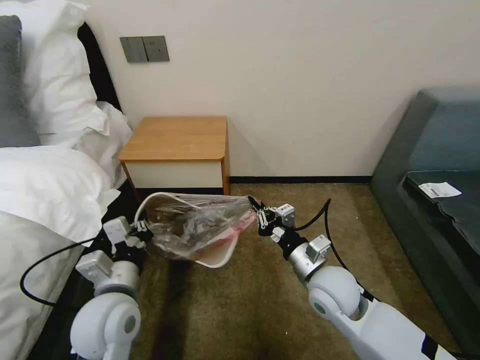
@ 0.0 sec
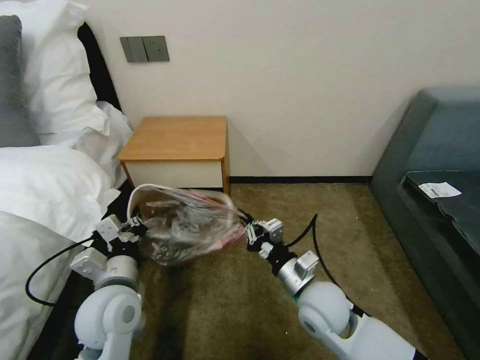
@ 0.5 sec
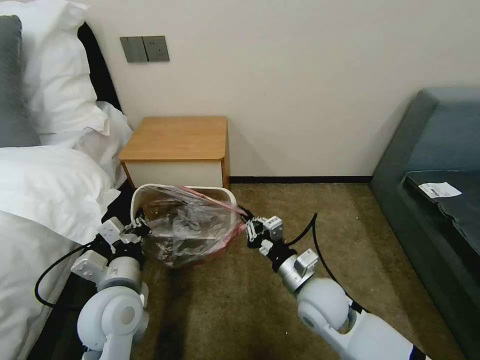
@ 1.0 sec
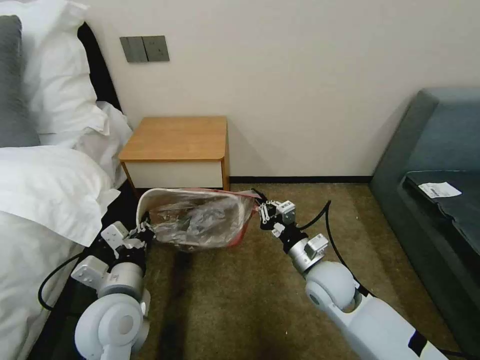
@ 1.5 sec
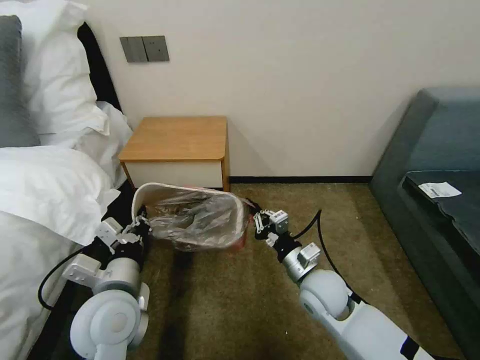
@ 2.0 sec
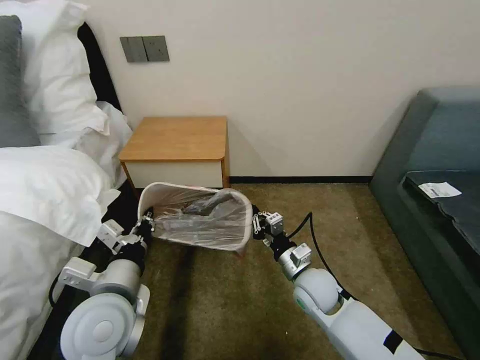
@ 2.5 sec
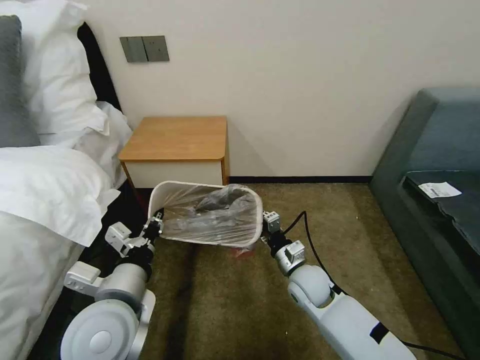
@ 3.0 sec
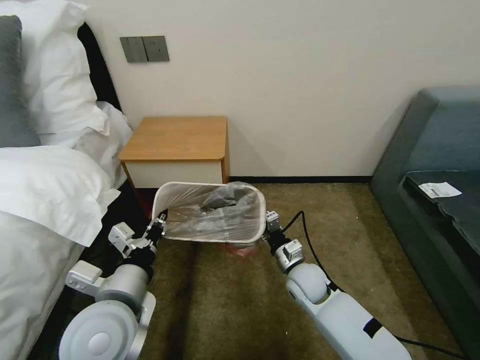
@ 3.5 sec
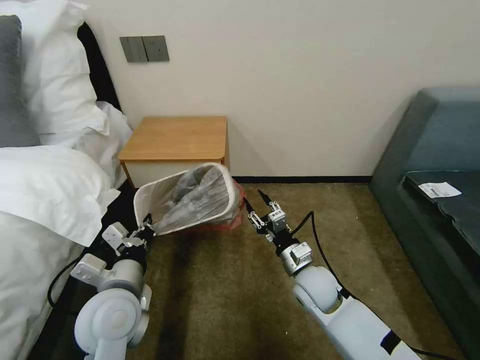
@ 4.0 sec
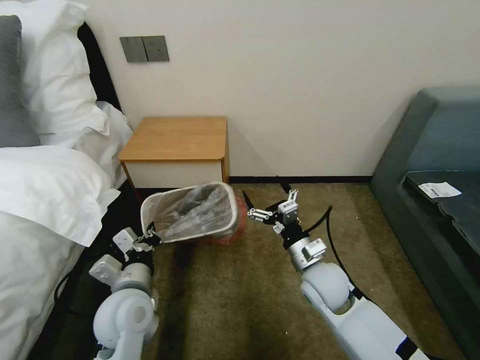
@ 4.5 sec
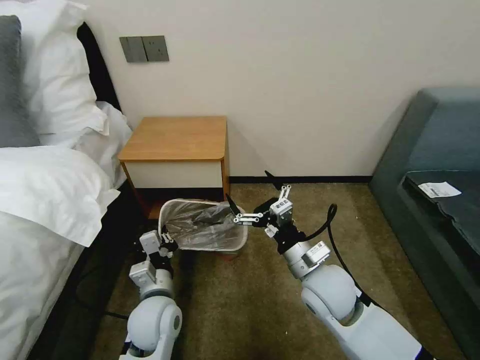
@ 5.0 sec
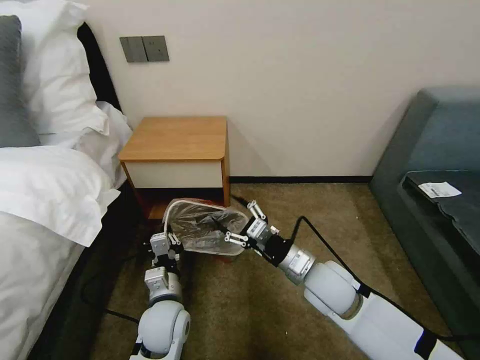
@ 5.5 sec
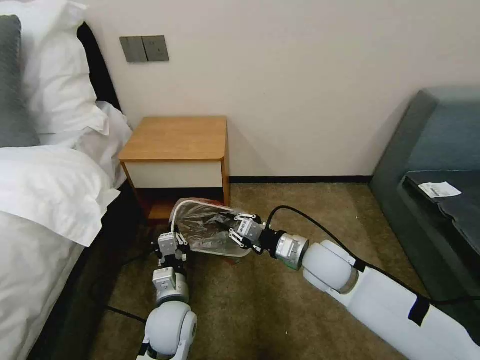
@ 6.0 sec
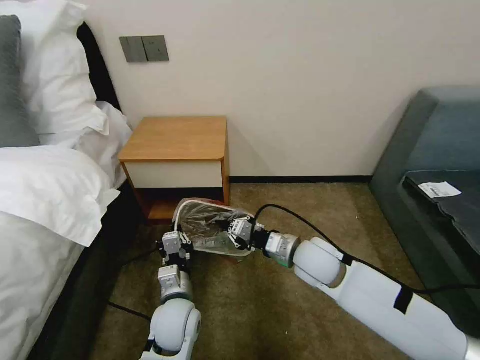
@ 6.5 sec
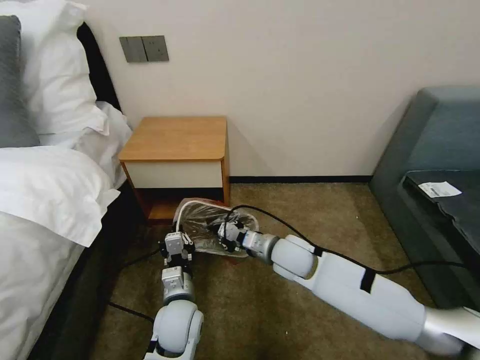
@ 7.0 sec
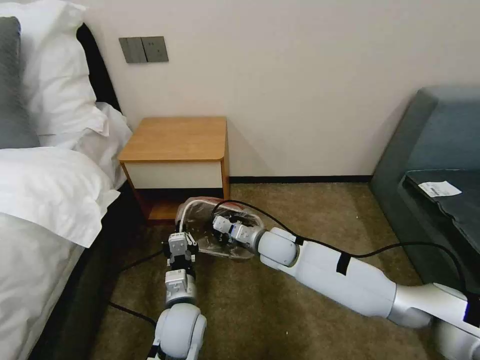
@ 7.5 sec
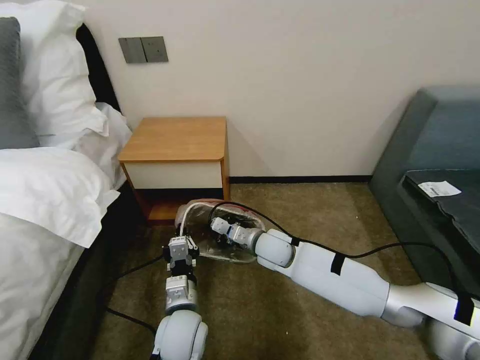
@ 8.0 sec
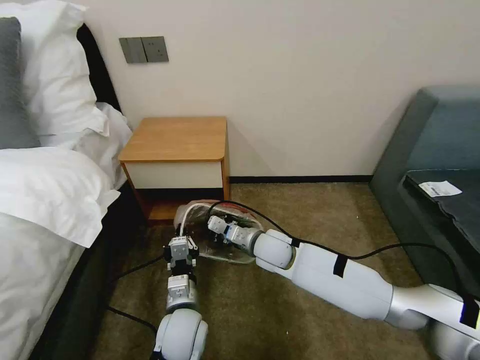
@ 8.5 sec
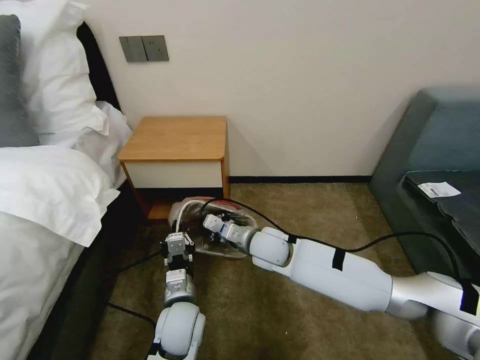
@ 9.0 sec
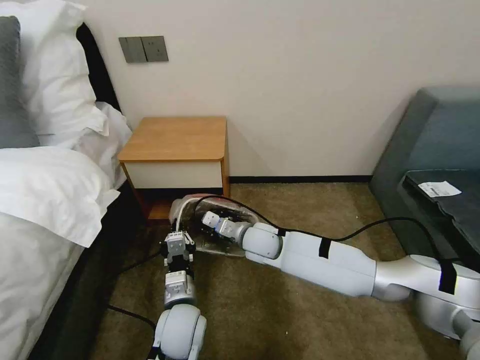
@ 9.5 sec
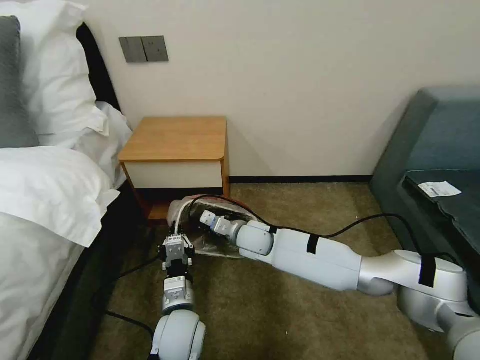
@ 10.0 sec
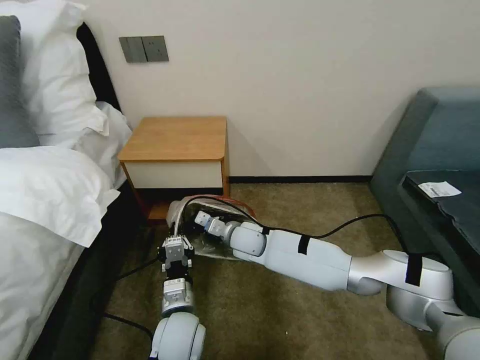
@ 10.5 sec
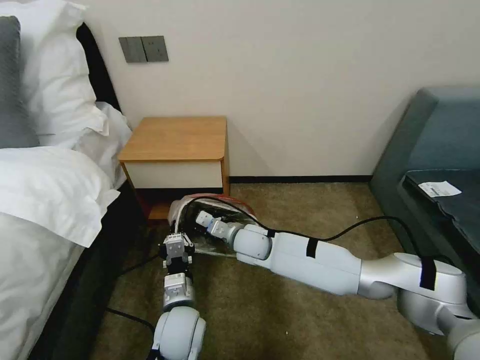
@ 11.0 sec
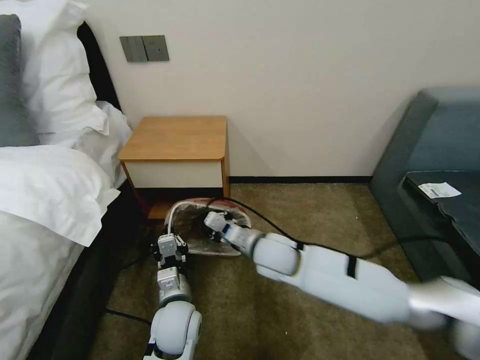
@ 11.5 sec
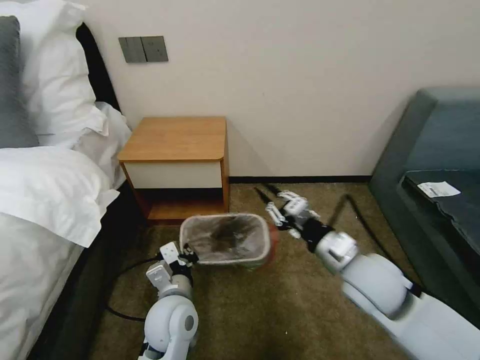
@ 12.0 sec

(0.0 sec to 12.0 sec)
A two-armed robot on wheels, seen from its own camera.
Task of the whole recording: Pick up the garbage bag from the table and place it over the trash can.
2.0 sec - 4.0 sec: The right gripper opens up.
4.0 sec - 6.0 sec: The right gripper is displaced upward by about 10 cm, and opens, then closes once more; the left gripper moves downward and to the right, some 15 cm.
6.0 sec - 8.0 sec: The right gripper is displaced to the left, forward and downward by some 15 cm.
8.0 sec - 10.0 sec: The right gripper moves to the left, about 5 cm.
10.0 sec - 12.0 sec: The right gripper shifts approximately 30 cm to the right, backward and upward.

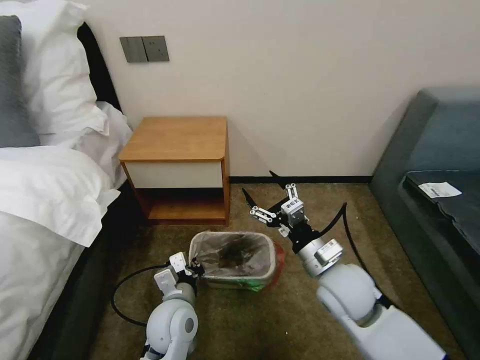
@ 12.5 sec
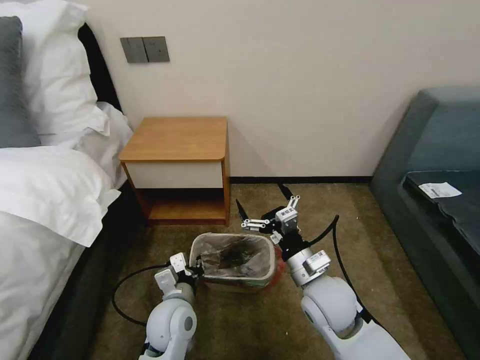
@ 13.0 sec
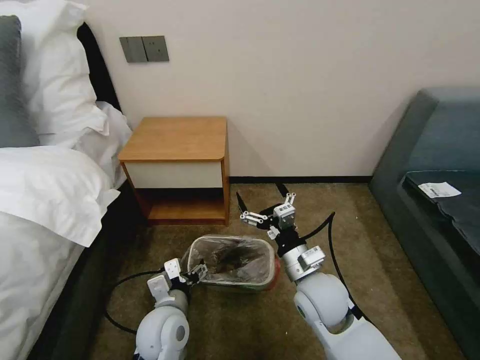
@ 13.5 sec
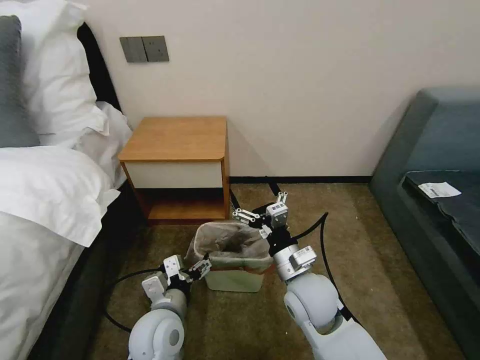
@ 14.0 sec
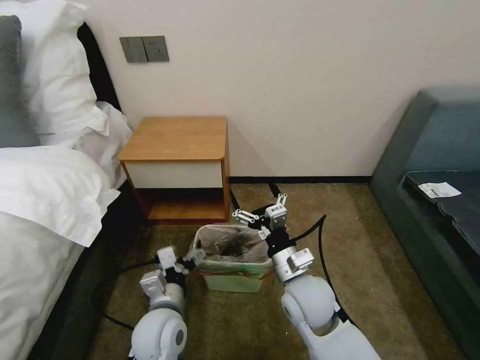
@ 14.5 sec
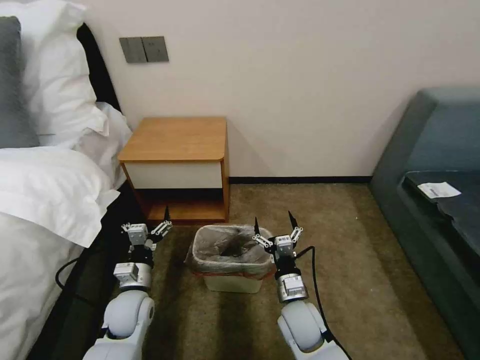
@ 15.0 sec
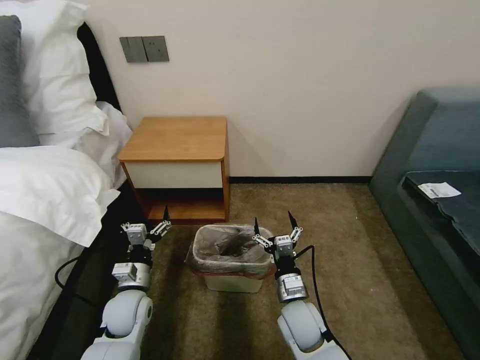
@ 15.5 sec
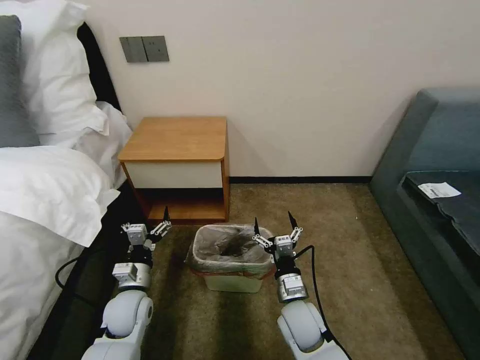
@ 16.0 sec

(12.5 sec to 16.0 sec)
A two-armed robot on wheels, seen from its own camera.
Task of the whole recording: Pick up the garbage bag from the table and place it over the trash can.
12.5 sec - 14.5 sec: The left gripper opens up. Meanwhile the right gripper goes roughly 5 cm to the left.
14.5 sec - 16.0 sec: The left gripper moves to the left, downward and forward, some 15 cm. The right gripper heads downward, covering approximately 10 cm.
